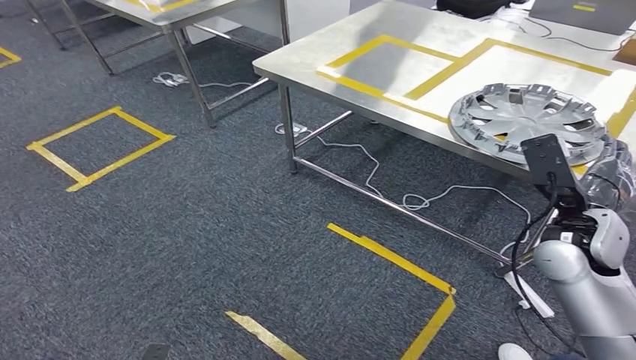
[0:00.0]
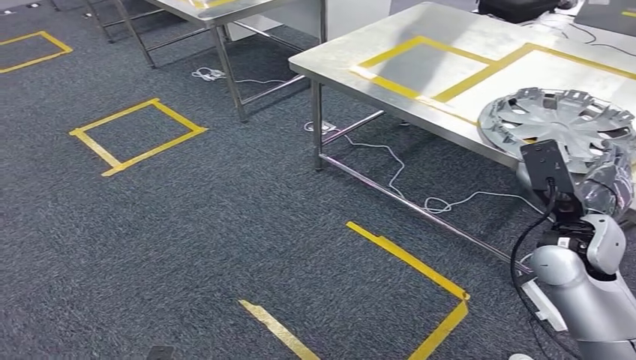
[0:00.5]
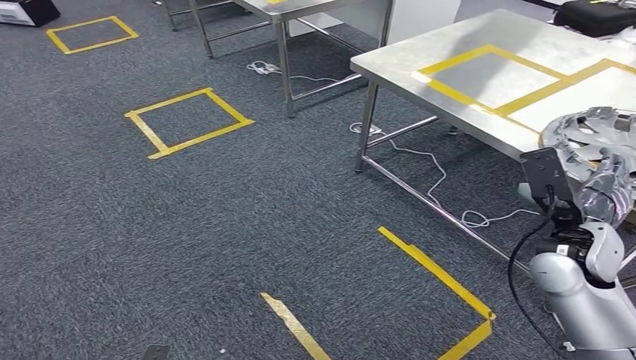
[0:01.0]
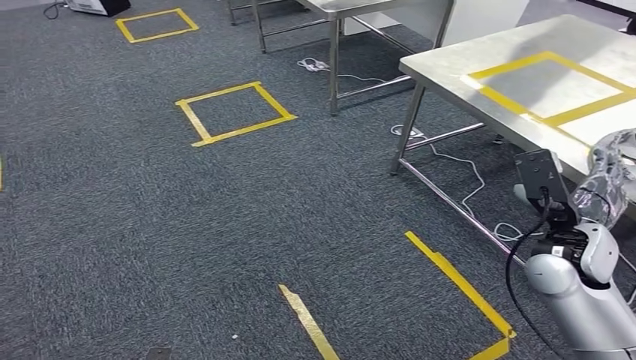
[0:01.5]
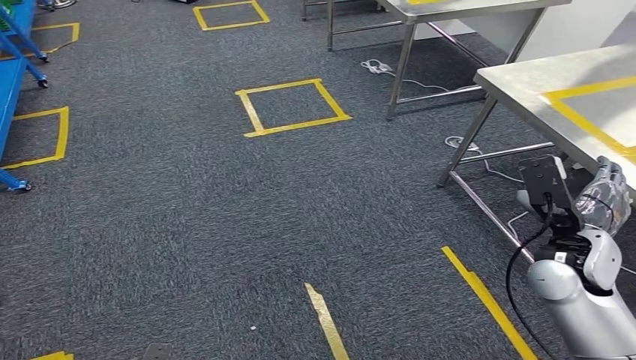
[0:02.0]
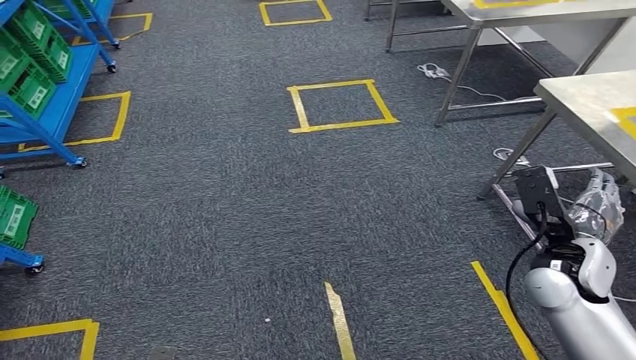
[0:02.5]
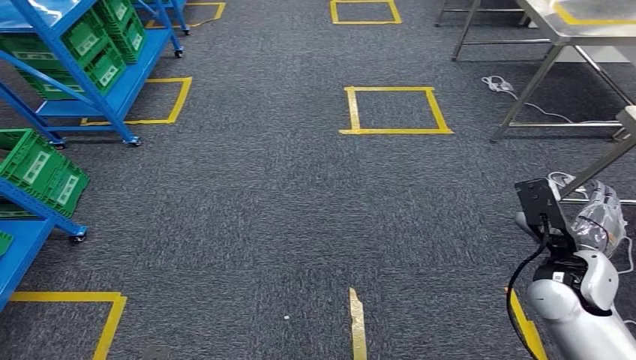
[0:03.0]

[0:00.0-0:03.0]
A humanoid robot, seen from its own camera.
Step, 0:00.0 to 0:03.0: Move to the initial position at the workbench.
